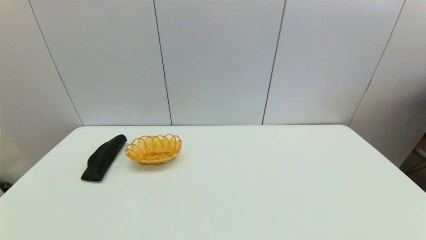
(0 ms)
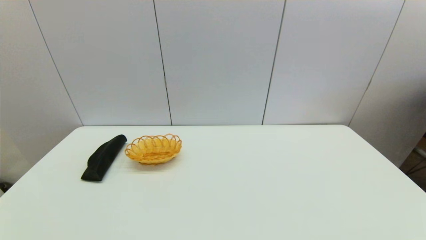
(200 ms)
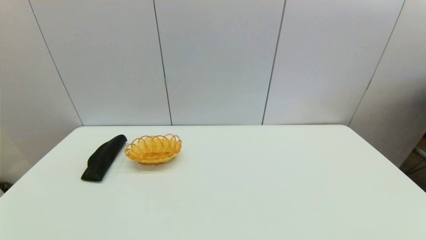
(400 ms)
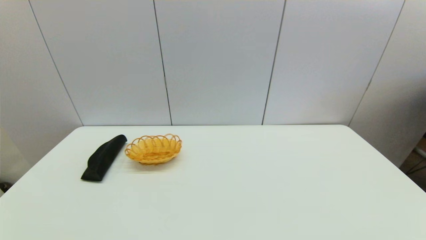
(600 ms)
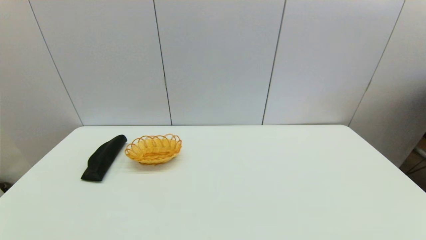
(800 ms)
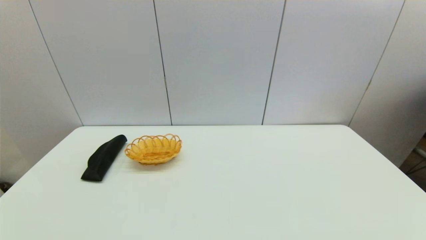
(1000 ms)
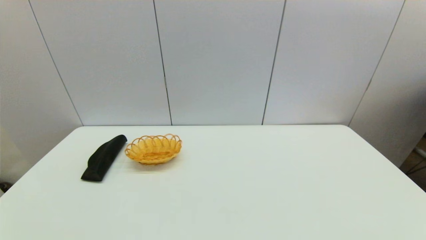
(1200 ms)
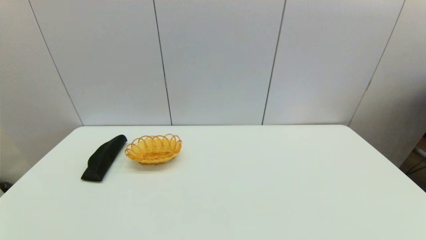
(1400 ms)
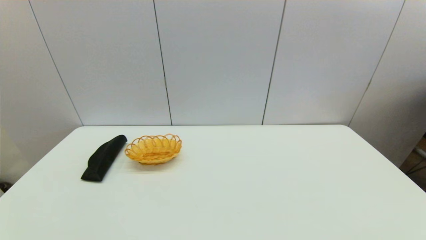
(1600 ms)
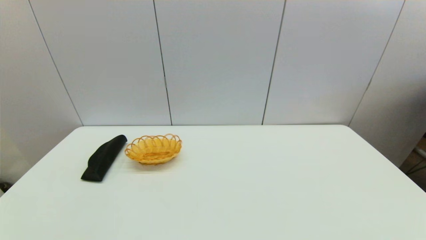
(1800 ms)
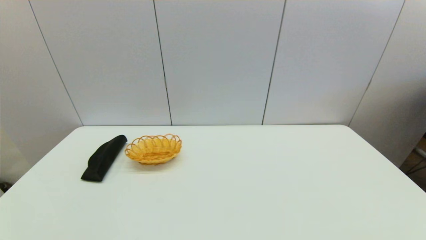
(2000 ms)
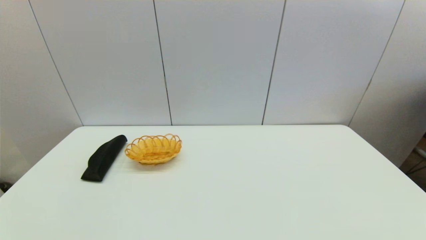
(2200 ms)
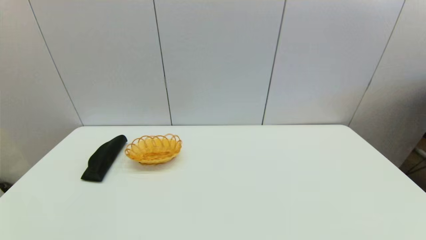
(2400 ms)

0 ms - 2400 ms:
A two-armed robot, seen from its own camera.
1200 ms - 2400 ms: Neither gripper changes place.
